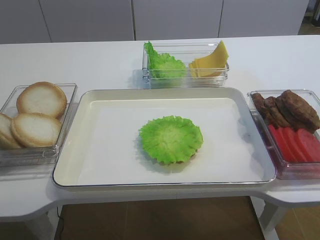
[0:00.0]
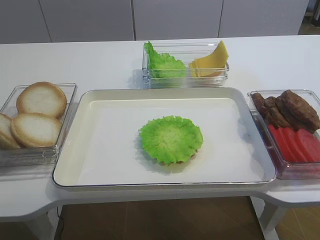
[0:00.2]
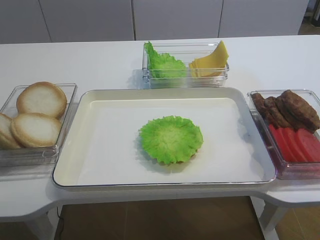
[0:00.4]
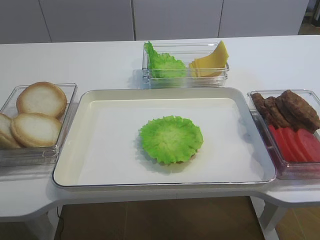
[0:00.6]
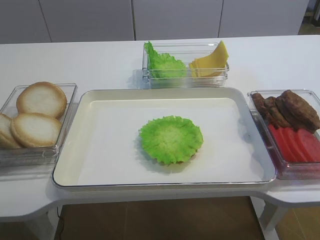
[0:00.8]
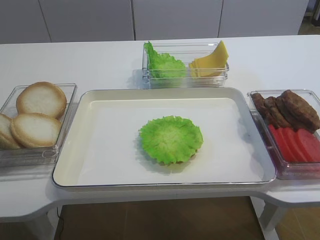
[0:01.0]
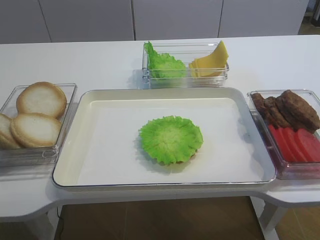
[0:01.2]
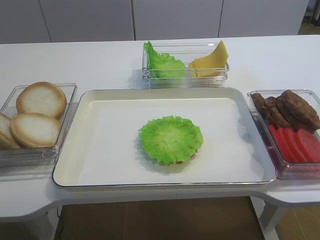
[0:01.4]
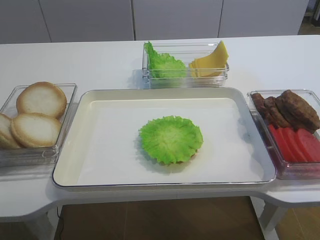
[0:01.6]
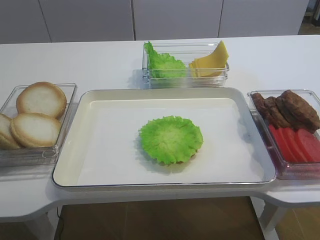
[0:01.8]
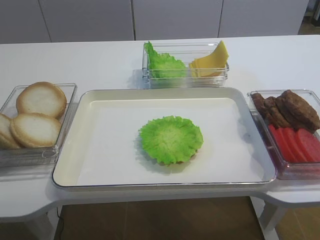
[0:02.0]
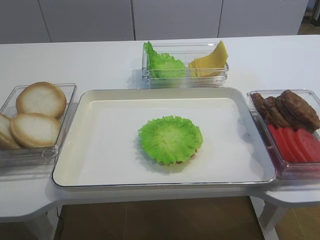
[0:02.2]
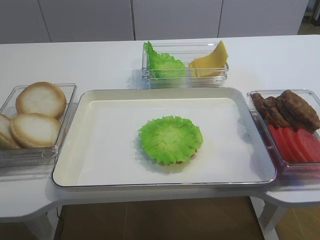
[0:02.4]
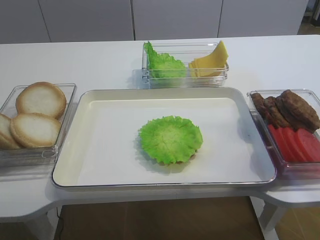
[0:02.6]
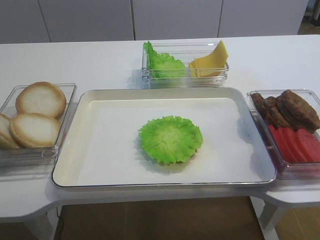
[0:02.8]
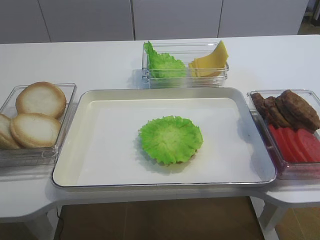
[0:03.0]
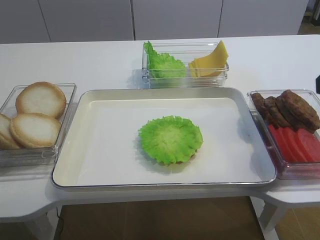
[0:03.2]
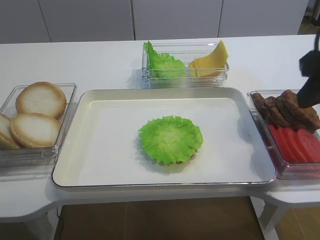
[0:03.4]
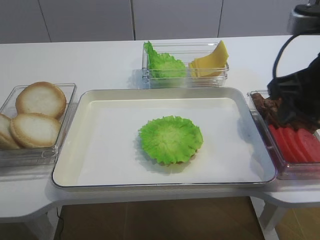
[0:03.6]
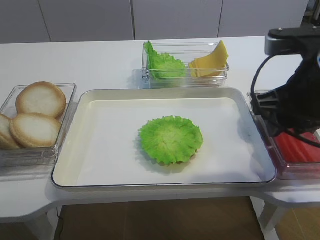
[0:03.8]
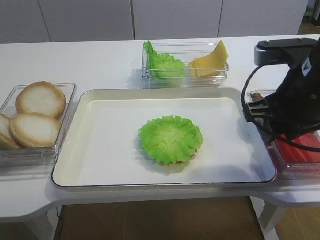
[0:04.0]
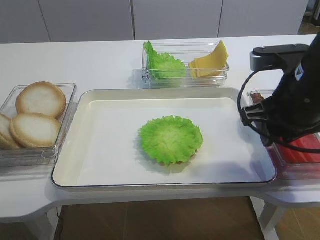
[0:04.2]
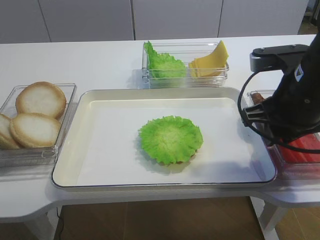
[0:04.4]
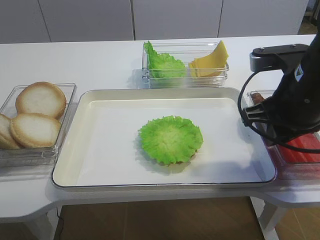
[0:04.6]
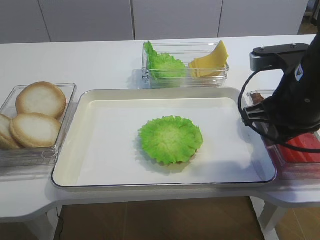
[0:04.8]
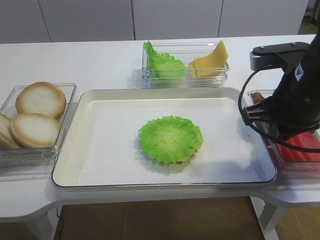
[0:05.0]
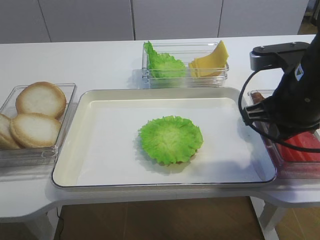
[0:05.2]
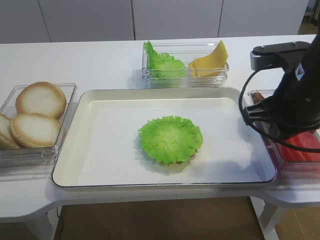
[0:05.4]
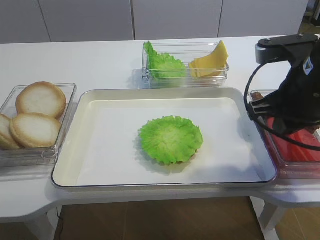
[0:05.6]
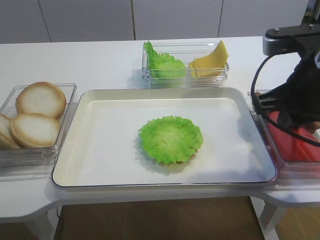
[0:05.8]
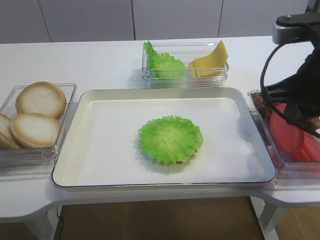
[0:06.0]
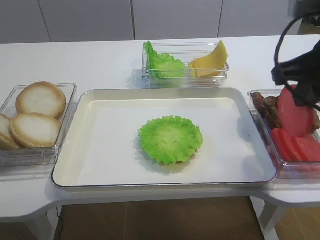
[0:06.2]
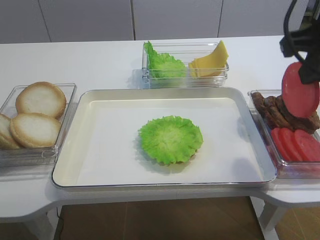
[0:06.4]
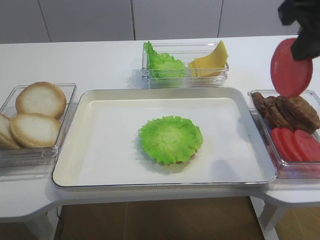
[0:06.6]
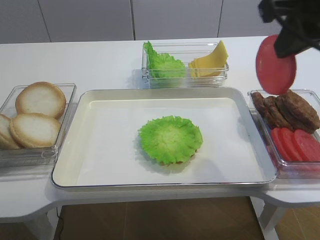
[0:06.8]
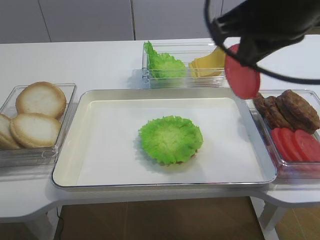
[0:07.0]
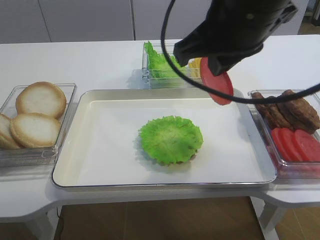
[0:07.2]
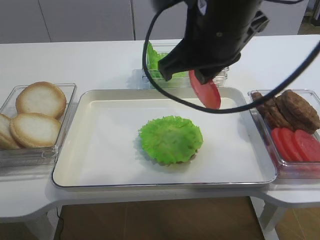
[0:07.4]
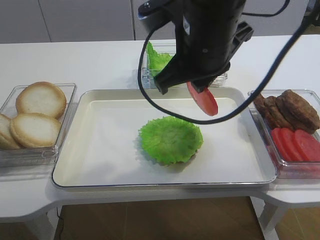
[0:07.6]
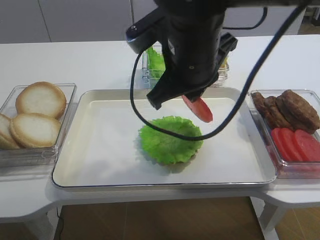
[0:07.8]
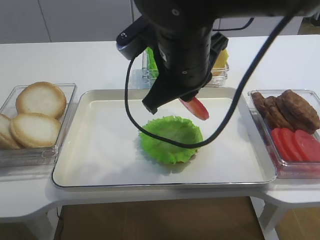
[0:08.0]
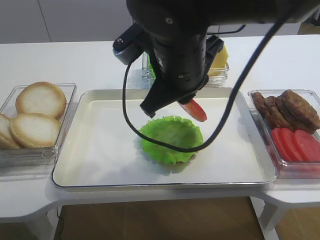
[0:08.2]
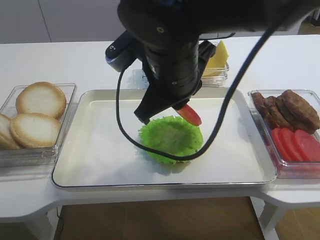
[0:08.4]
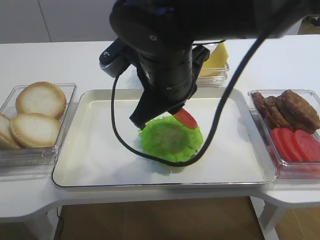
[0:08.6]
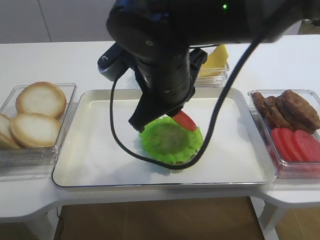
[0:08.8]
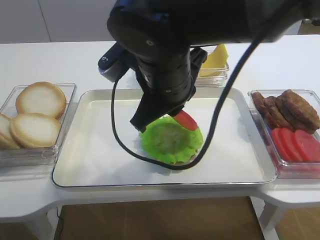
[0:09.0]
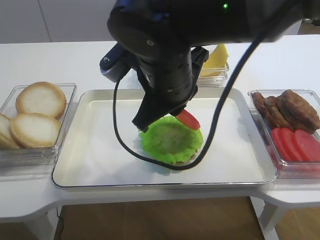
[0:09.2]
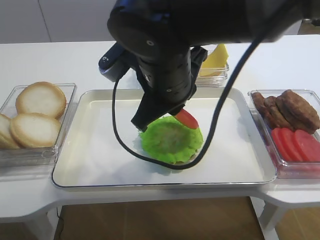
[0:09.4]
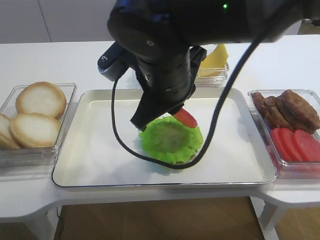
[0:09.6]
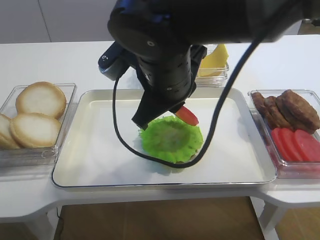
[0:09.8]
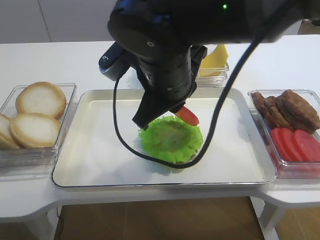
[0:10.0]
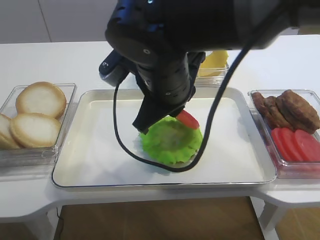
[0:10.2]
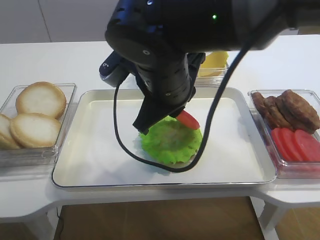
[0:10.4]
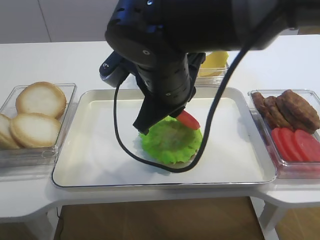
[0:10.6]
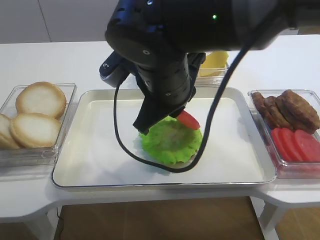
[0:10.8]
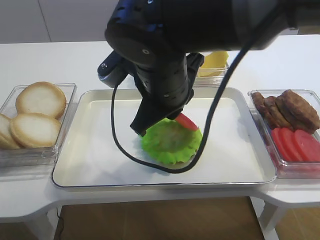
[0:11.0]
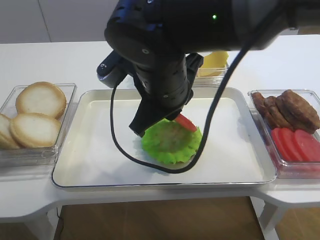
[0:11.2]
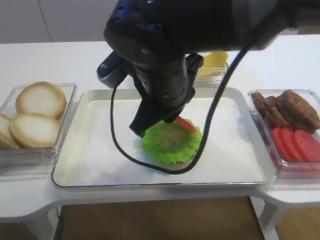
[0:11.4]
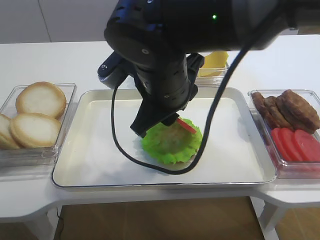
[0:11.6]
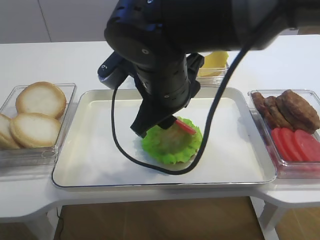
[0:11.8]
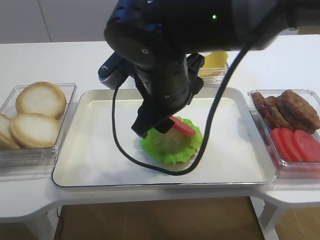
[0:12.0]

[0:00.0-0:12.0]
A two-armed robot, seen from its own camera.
Step, 0.0 to 6.0 s: Pick up the tomato slice with the right gripper.
1.6 to 3.0 s: The right gripper shifts some 20 cm forward and upward.
3.0 to 4.4 s: The right gripper goes about 15 cm downward, forward and to the left.
4.4 to 6.0 s: The grippers move only a little.
6.0 to 7.6 s: The right gripper is displaced to the left by about 15 cm.
7.6 to 9.0 s: The right gripper moves approximately 5 cm.
9.0 to 10.4 s: The two grippers keep their place.
10.4 to 12.0 s: The right gripper opens.

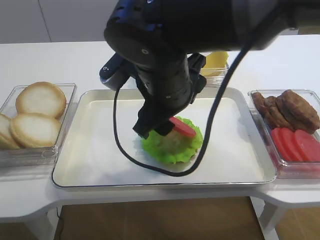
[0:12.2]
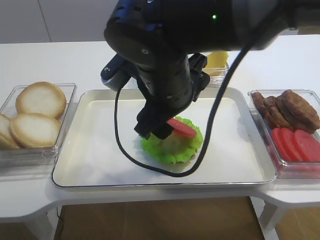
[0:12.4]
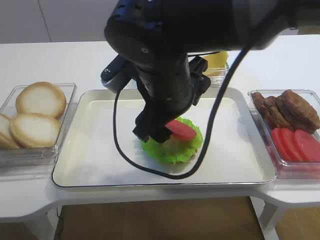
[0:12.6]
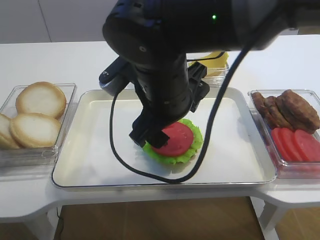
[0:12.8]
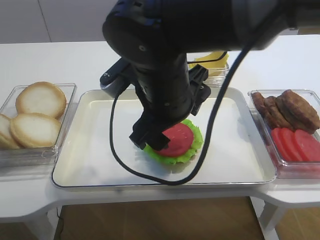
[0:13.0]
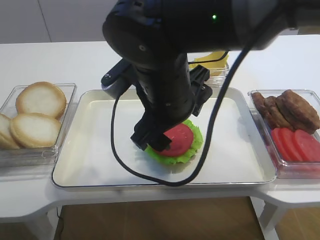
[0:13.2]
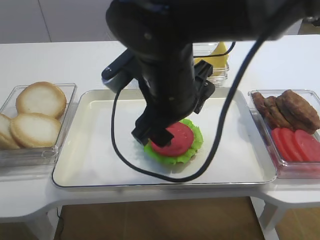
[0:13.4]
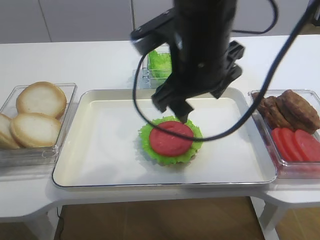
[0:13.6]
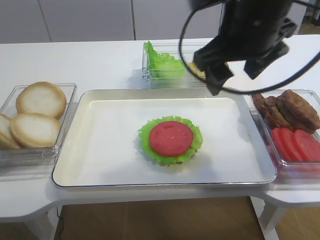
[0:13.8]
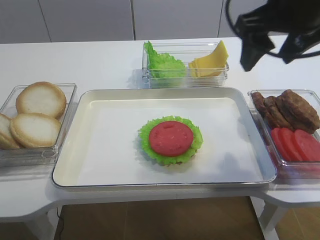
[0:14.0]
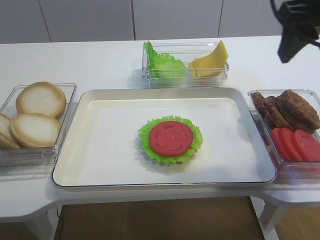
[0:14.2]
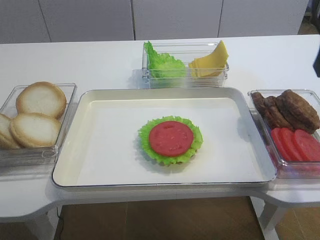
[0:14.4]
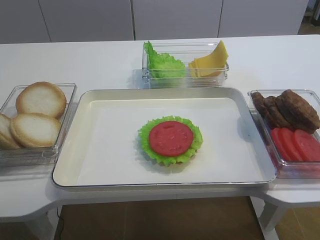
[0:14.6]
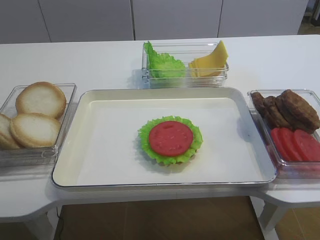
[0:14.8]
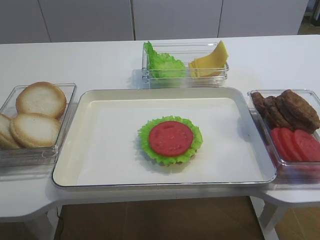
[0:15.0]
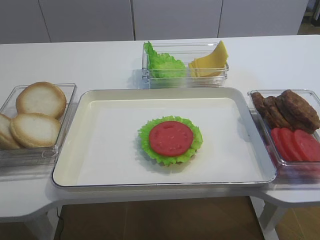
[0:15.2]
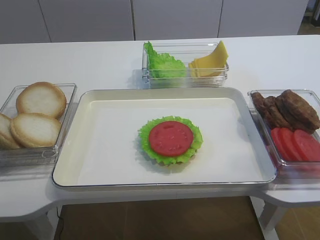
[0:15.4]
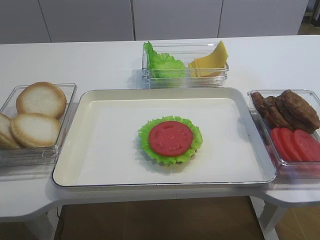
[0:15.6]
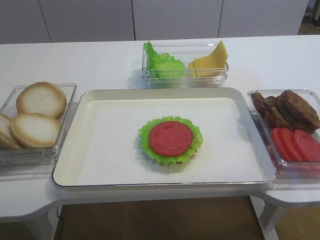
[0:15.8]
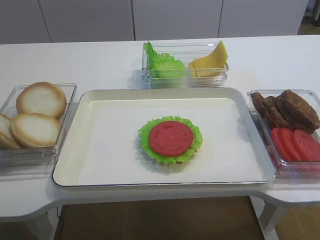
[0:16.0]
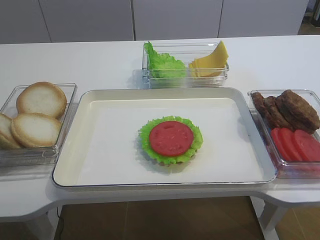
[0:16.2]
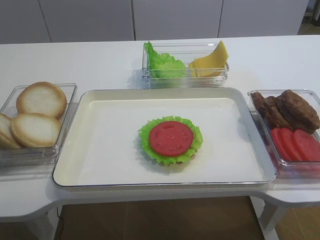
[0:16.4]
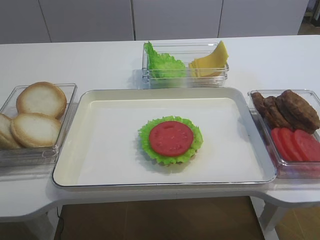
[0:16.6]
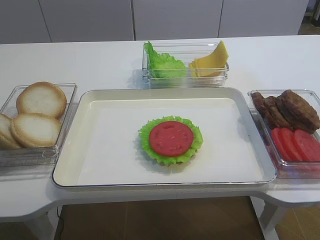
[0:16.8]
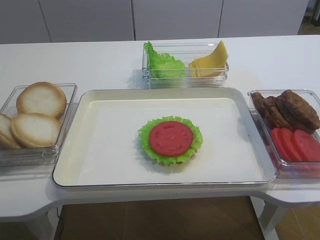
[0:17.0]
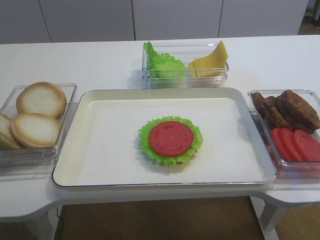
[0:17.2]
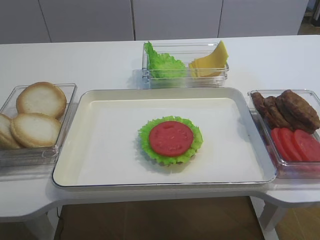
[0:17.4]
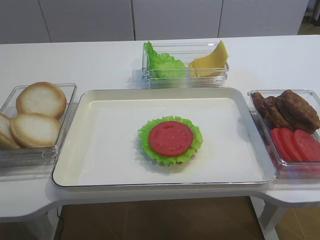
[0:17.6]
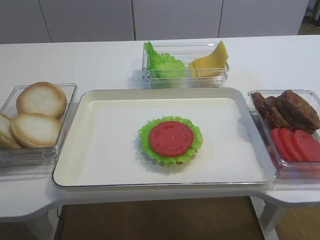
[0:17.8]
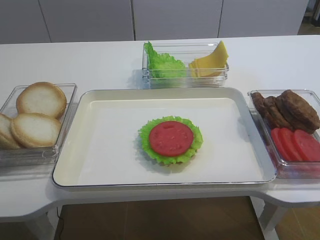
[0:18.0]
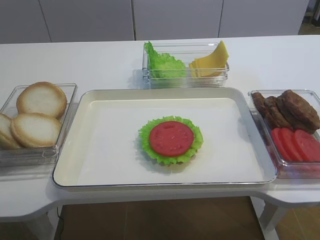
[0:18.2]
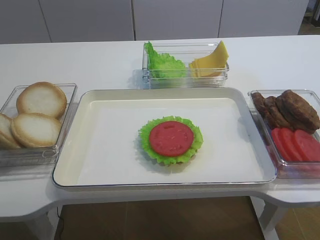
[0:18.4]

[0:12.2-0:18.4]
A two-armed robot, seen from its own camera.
12.2 to 13.8 s: The right gripper heads to the right and upward, covering some 10 cm.
13.8 to 15.4 s: The right gripper travels backward and to the right by some 30 cm.

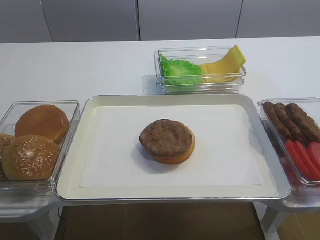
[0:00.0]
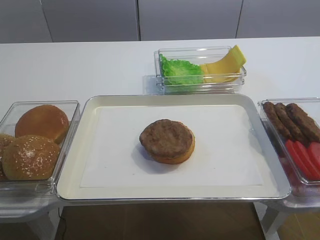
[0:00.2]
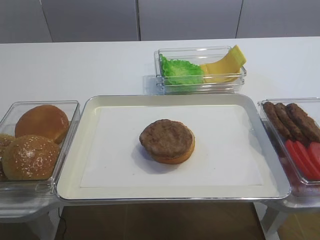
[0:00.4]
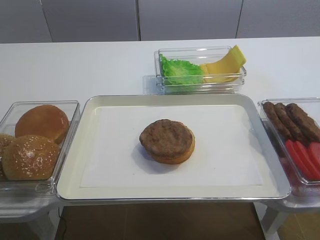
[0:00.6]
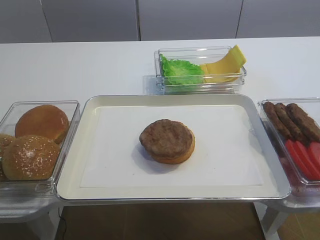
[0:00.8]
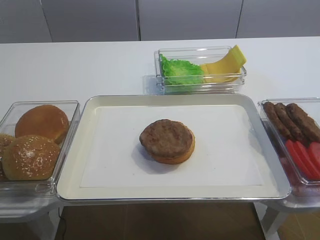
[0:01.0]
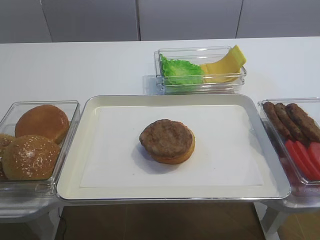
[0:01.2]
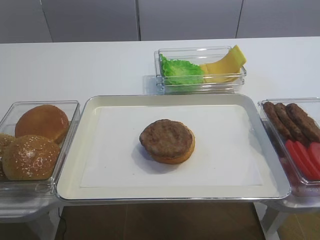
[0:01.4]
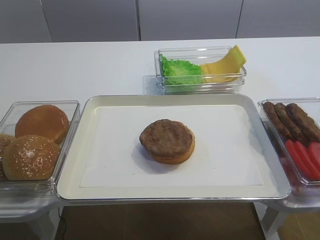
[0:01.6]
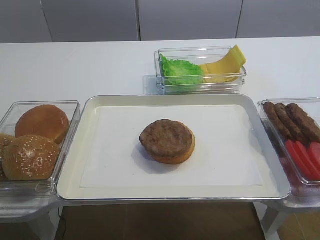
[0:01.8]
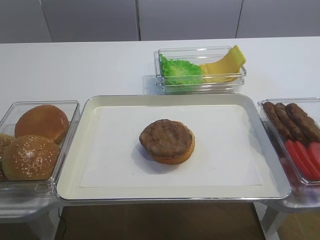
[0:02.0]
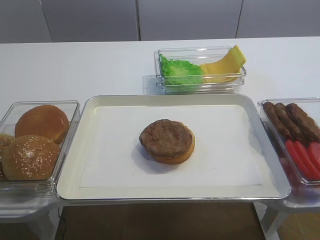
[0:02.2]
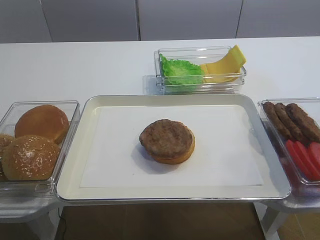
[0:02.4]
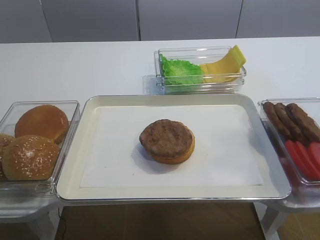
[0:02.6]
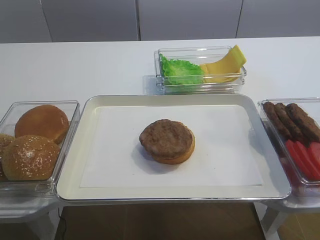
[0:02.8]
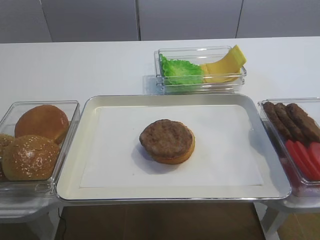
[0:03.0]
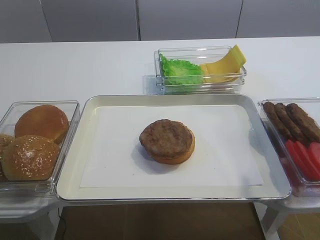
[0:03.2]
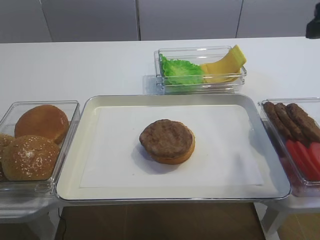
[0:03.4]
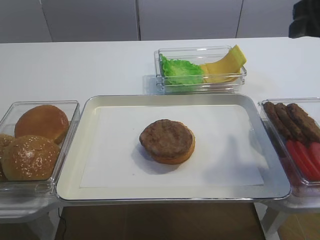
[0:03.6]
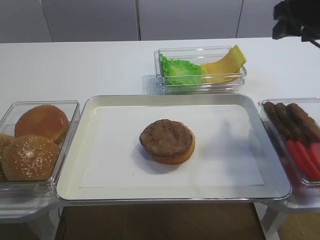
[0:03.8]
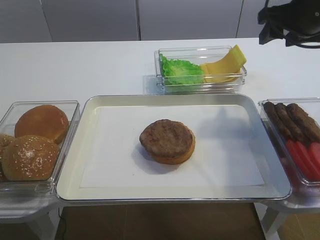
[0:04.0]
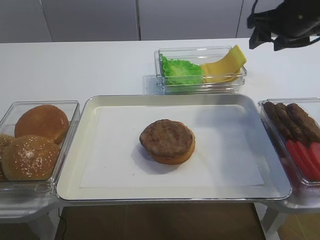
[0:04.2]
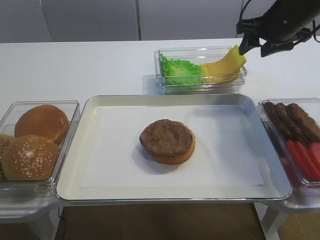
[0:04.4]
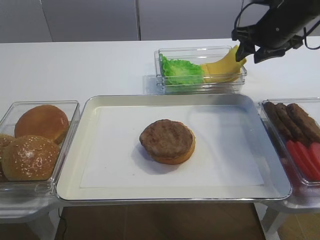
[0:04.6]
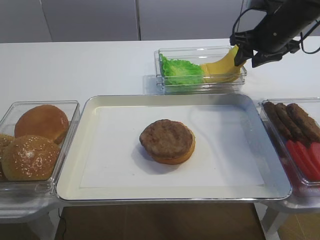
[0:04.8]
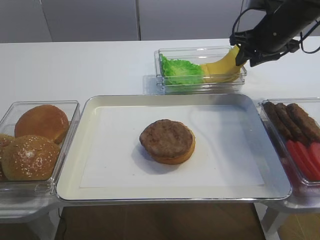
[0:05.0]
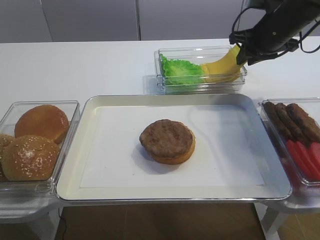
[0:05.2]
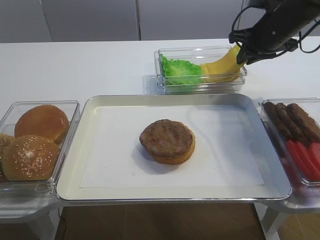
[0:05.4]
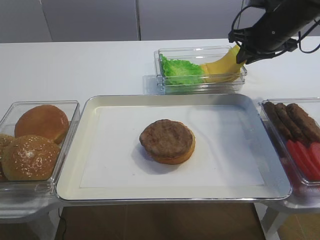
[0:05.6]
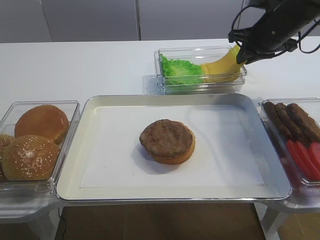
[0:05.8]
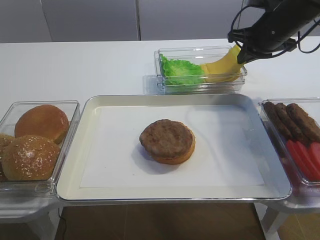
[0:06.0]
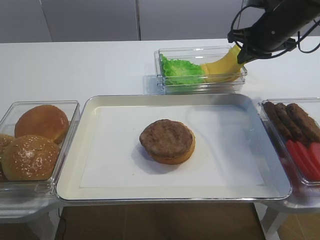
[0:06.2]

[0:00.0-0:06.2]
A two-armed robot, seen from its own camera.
1.6 to 3.2 s: The right gripper travels forward by approximately 20 cm.
3.2 to 4.6 s: The right gripper is displaced forward by roughly 25 cm.
4.6 to 6.2 s: The right gripper closes.
